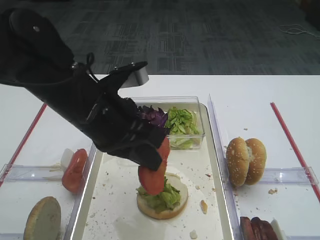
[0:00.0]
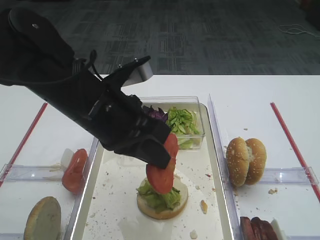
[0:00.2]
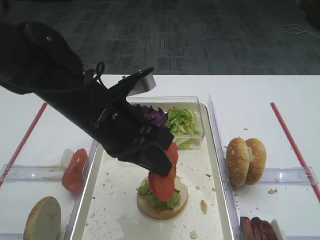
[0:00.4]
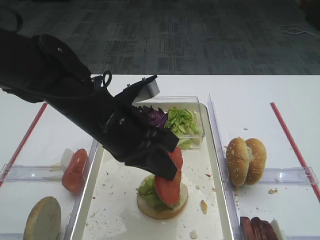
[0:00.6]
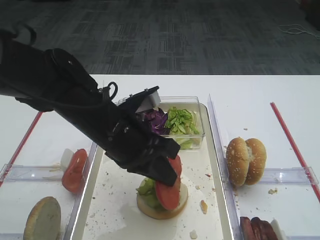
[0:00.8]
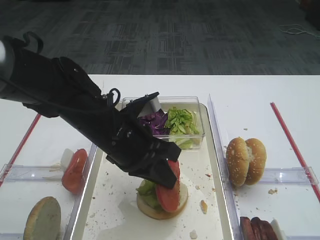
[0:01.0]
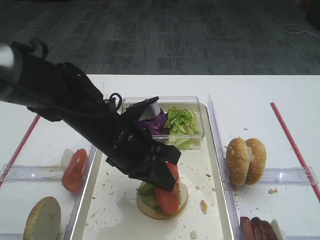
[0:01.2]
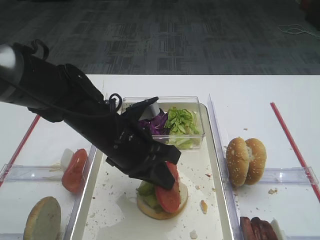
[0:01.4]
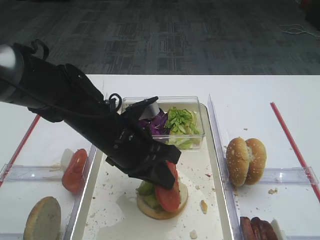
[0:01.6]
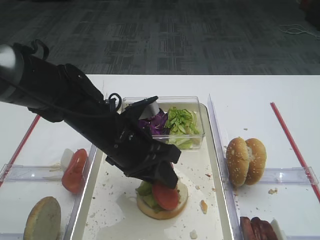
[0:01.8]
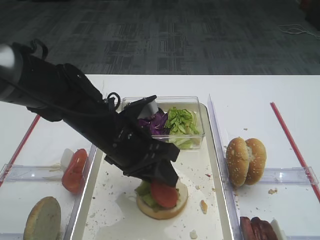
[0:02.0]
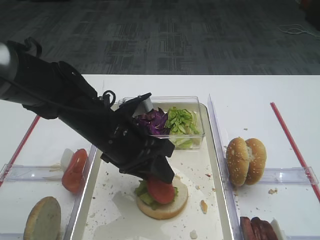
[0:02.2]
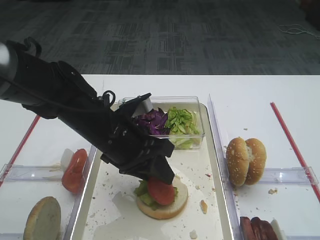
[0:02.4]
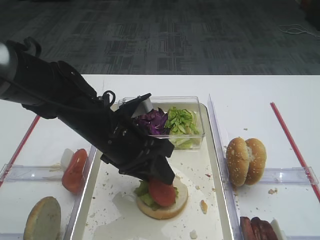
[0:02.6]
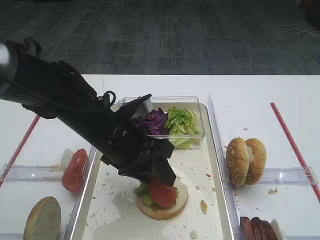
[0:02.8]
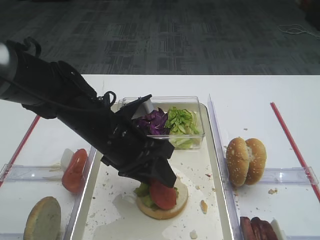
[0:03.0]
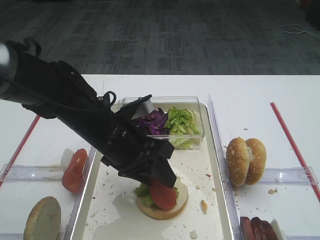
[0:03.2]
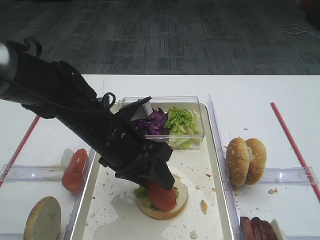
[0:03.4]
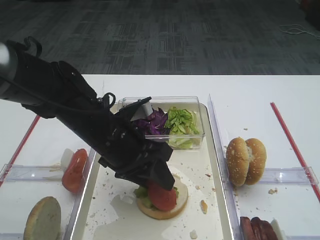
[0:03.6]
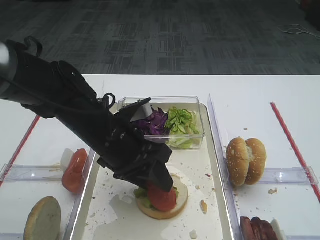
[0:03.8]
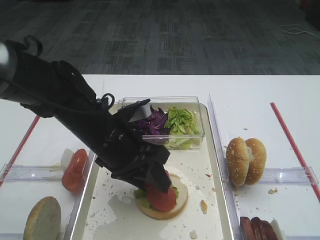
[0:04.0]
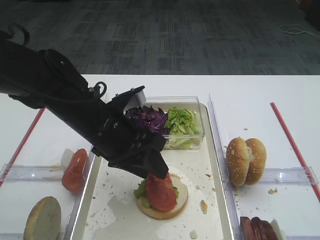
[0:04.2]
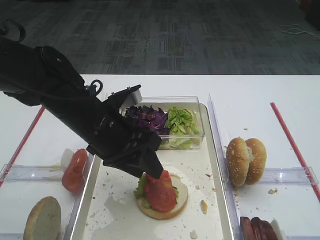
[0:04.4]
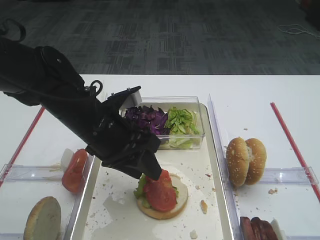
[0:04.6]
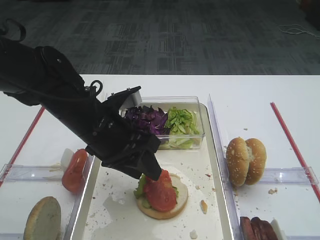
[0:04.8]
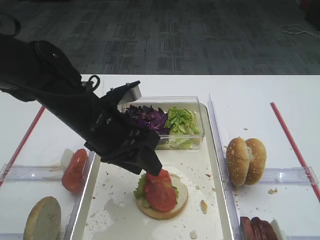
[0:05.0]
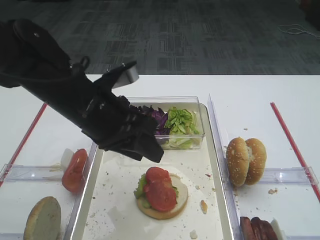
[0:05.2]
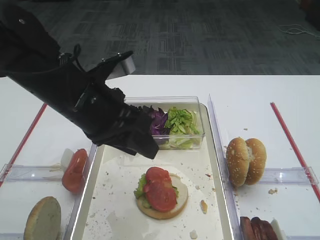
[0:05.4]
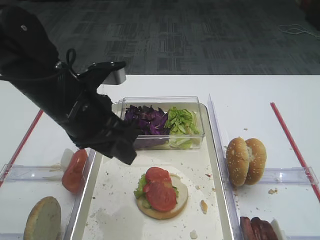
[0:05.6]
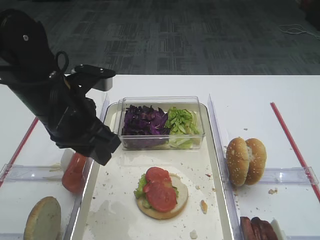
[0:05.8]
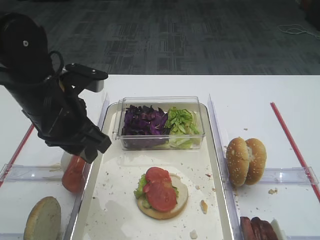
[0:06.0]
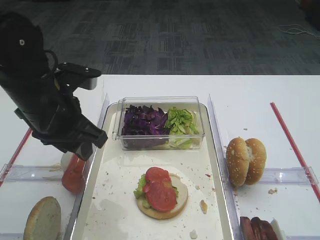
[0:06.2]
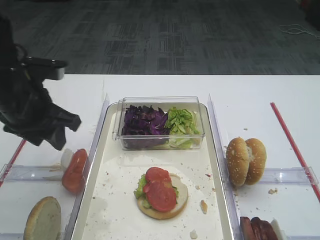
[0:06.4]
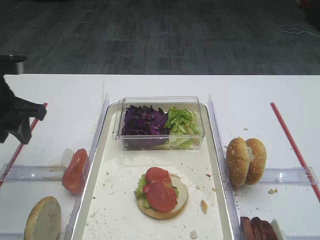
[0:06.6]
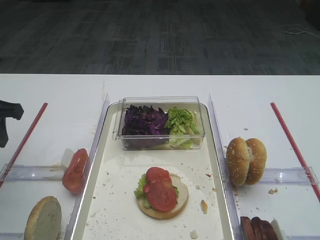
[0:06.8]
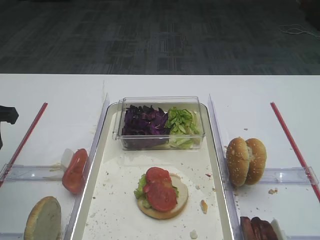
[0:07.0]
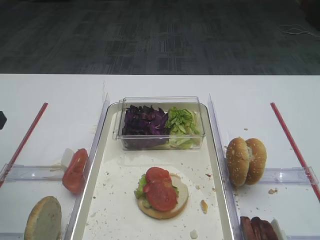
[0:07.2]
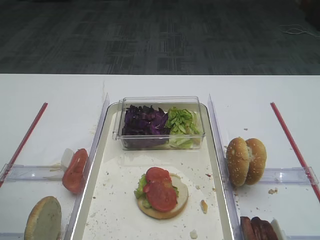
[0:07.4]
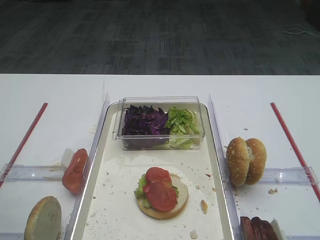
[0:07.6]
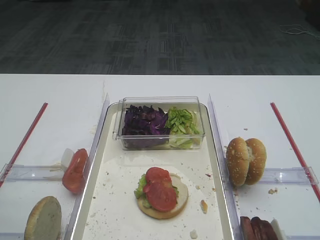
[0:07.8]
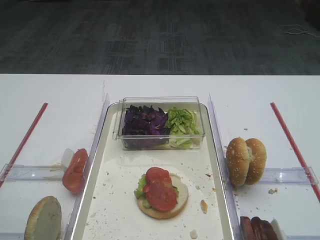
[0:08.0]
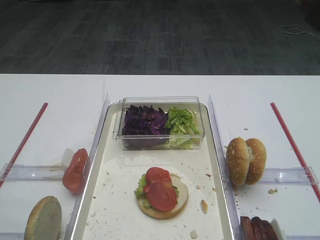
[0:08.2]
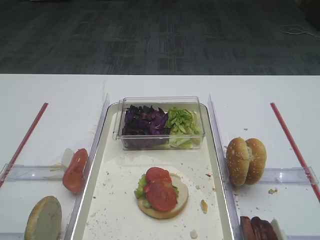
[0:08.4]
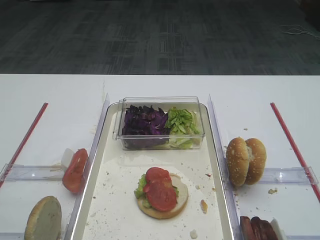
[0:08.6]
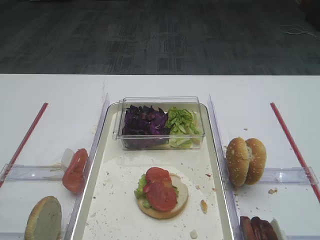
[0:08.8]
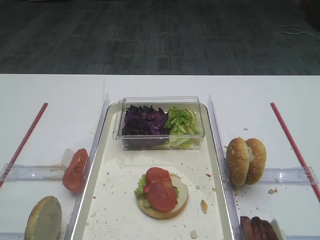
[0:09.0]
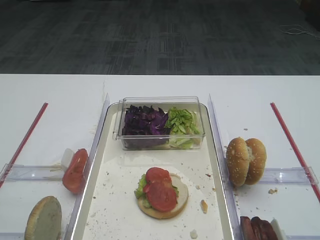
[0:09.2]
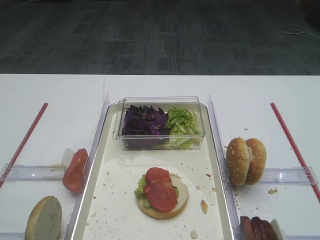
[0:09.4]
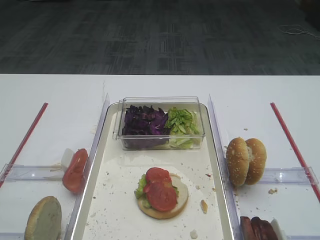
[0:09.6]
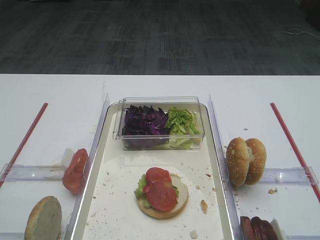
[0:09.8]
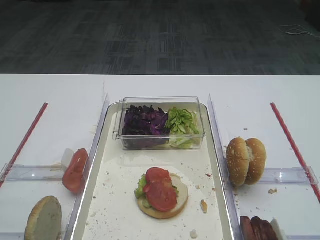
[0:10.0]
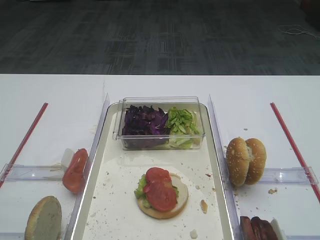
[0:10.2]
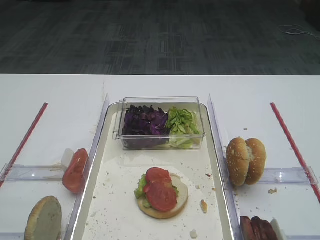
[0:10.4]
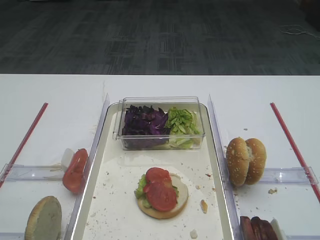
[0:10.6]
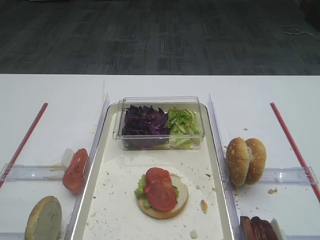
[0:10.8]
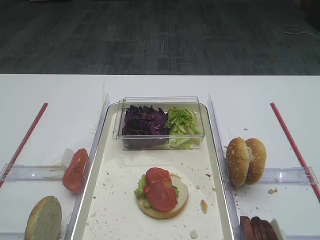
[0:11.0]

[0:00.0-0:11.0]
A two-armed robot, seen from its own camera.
Step, 0:00.0 to 0:04.4: Place the tomato slice on the lettuce leaf with the left gripper.
0:00.0 to 0:01.6: The left gripper travels downward by roughly 10 cm.
0:01.6 to 0:03.2: The left gripper opens.
0:03.2 to 0:04.8: The grippers make only small movements.
0:04.8 to 0:06.2: The left gripper goes roughly 5 cm to the left.
0:06.2 to 0:07.8: The left gripper is displaced to the left and backward by about 20 cm, and opens its fingers.
0:09.4 to 0:11.0: Both grippers stay put.

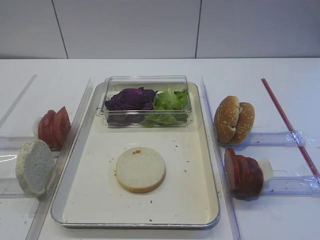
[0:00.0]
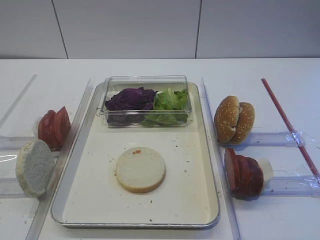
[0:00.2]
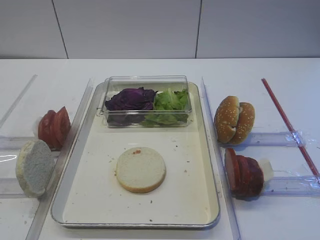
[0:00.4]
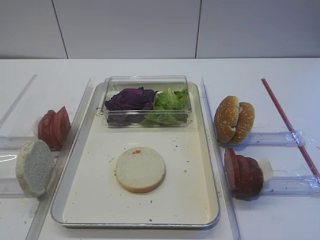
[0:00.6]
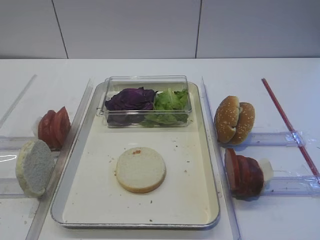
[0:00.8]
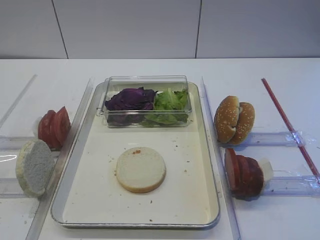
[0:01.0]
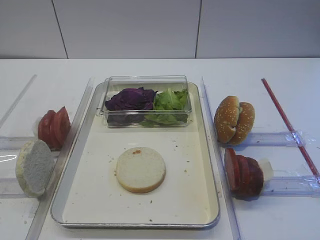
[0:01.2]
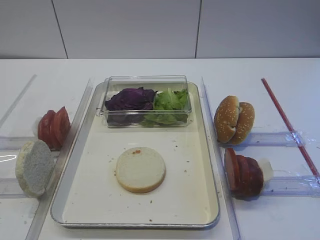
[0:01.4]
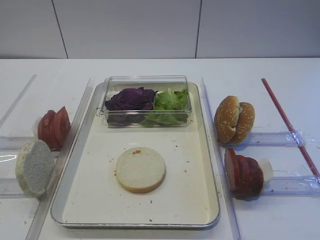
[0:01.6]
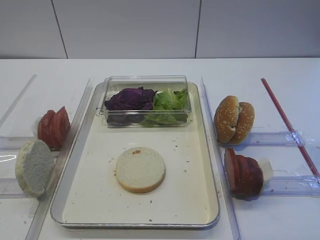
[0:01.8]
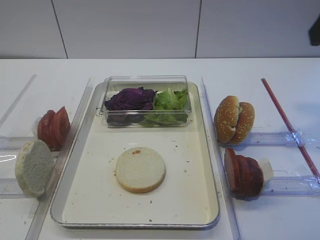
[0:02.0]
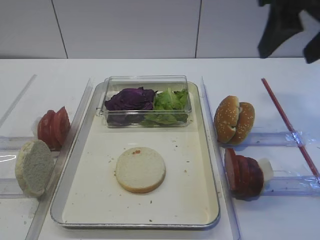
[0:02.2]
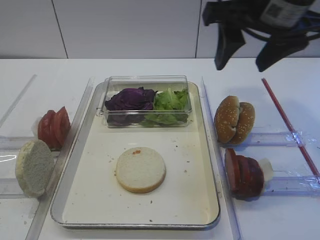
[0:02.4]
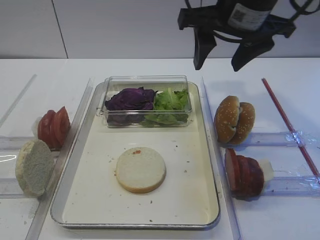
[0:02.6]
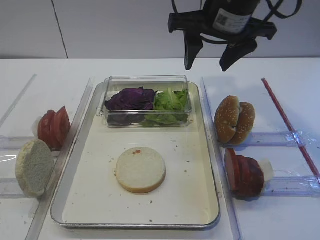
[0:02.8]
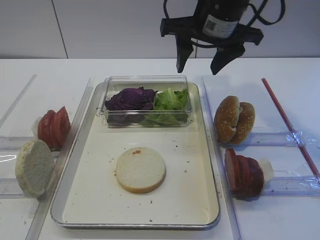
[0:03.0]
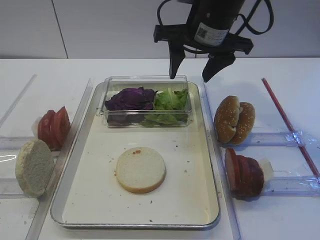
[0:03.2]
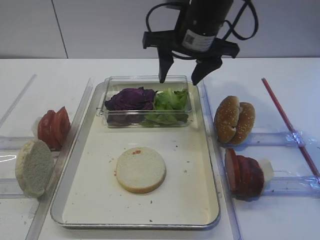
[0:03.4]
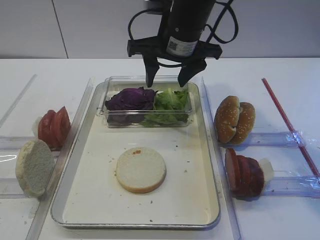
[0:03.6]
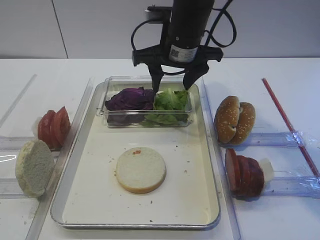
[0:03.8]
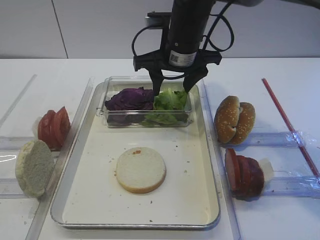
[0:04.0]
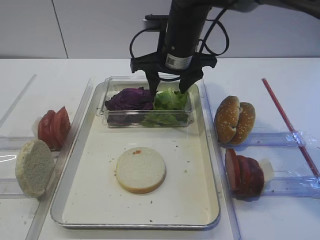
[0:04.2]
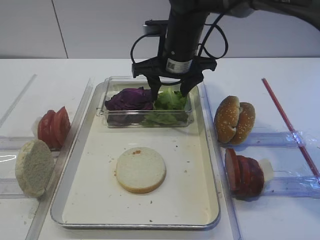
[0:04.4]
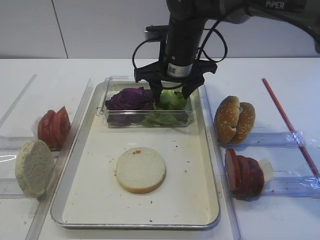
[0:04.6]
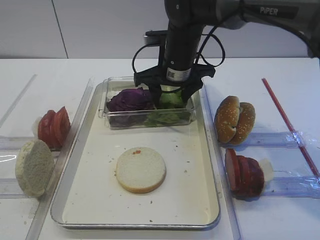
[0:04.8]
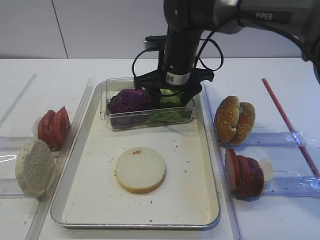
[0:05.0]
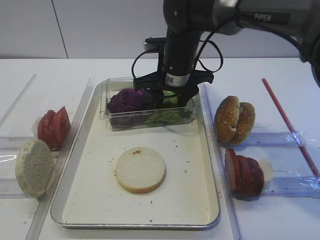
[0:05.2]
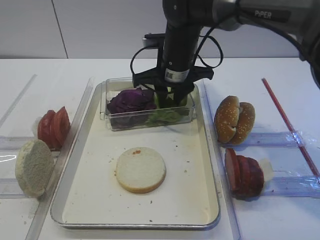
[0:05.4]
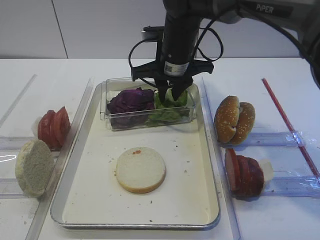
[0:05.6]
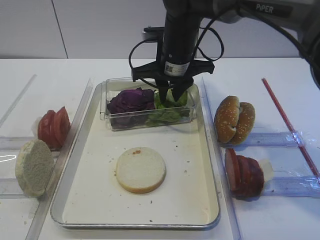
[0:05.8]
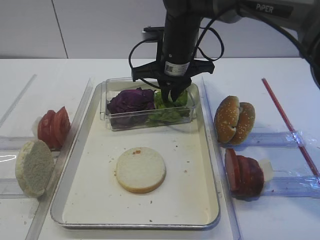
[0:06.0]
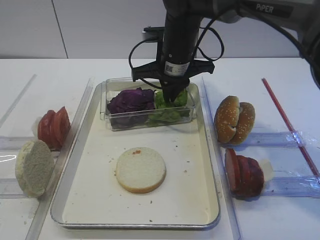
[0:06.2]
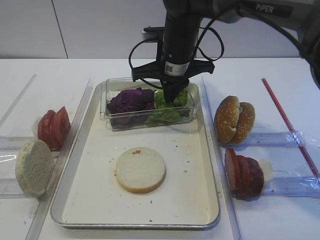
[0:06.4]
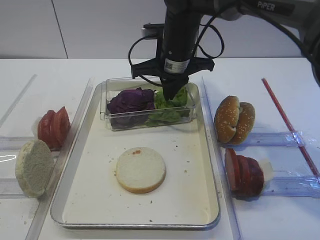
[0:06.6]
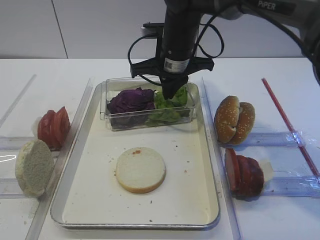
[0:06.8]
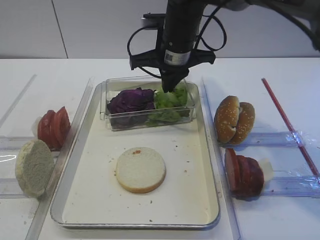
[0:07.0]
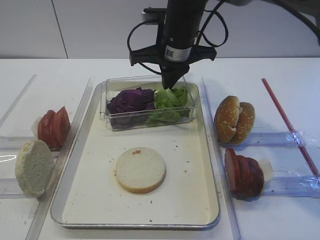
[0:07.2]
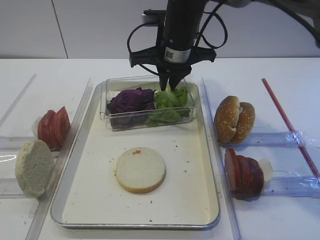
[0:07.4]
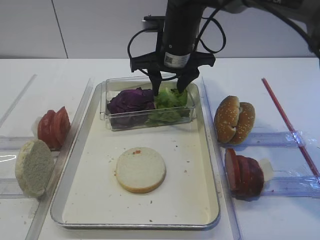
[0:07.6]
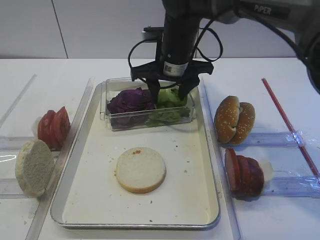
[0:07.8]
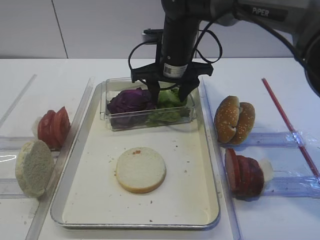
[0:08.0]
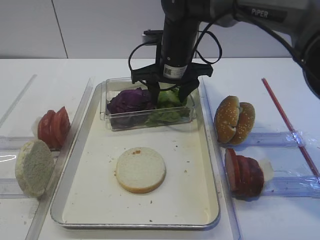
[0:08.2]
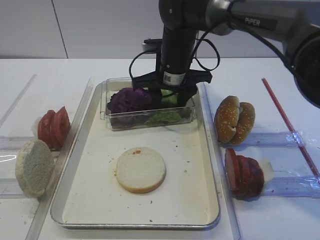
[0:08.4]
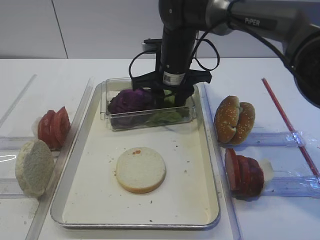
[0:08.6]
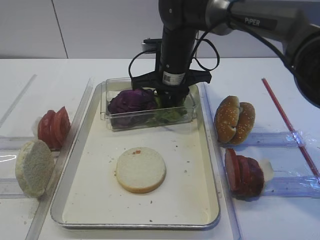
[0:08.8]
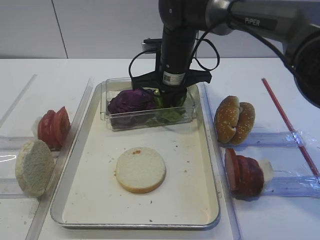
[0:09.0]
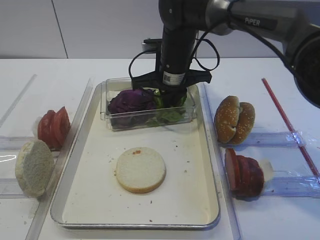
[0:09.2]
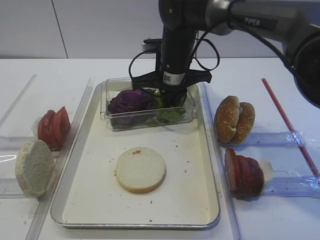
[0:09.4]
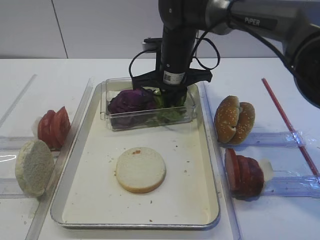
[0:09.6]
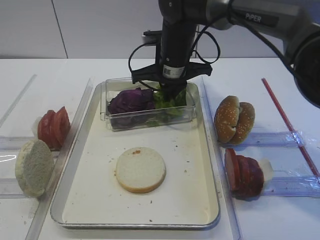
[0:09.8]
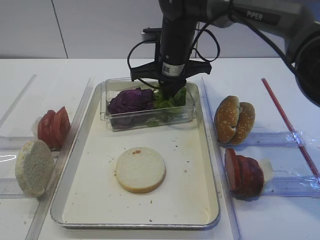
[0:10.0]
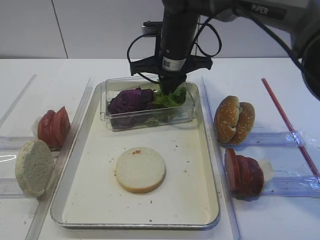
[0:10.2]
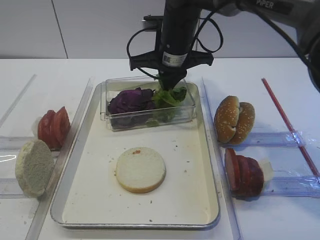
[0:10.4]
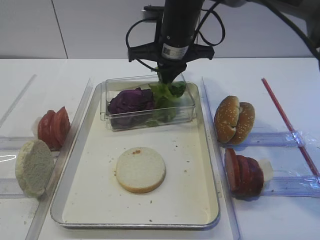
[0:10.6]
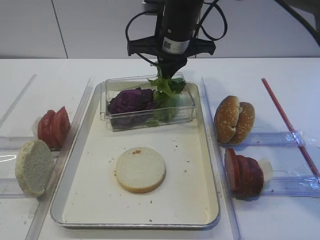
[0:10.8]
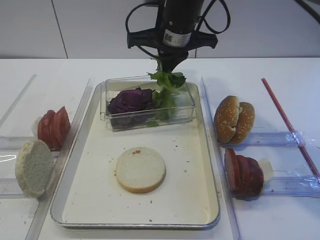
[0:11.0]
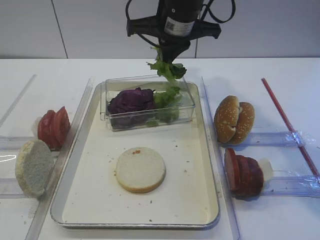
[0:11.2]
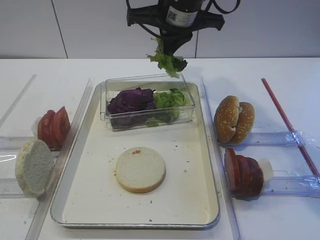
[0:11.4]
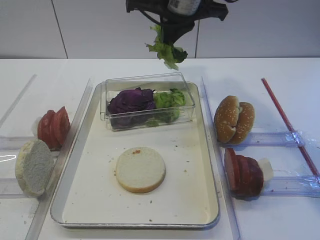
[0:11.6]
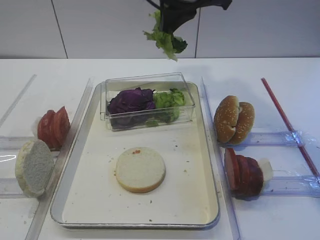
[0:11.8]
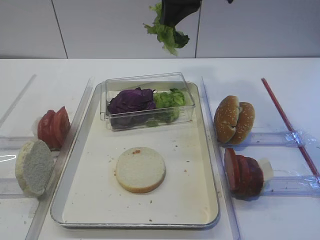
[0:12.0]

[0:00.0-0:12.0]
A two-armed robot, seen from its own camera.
Step, 0:00.0 to 0:10.8: Pick up the lettuce leaf with the right gripper.
0:01.6 to 0:03.0: The right gripper moves forward and to the left, roughly 30 cm.
0:03.0 to 0:04.4: The right gripper is displaced downward and to the left by roughly 10 cm.
0:04.4 to 0:06.0: The right gripper closes up.
0:06.0 to 0:07.6: The right gripper opens.
0:07.6 to 0:09.0: The right gripper closes up.
0:09.0 to 0:10.4: The grippers stay close to where they were, moving slightly.
0:10.4 to 0:12.0: The right gripper is displaced upward and backward by about 15 cm.
